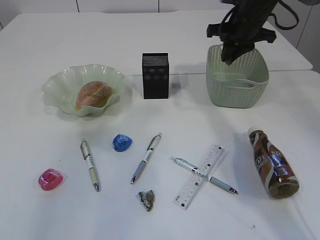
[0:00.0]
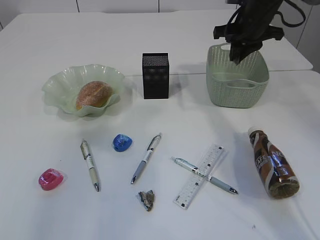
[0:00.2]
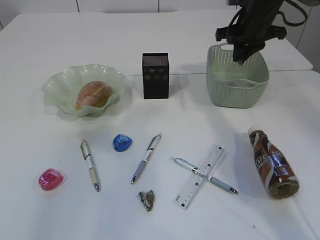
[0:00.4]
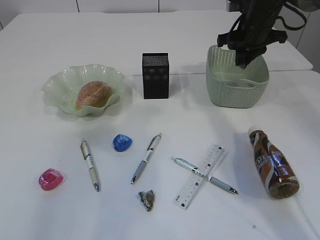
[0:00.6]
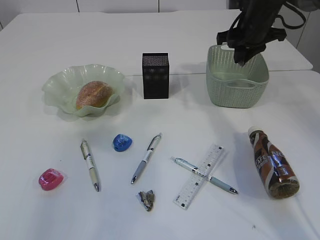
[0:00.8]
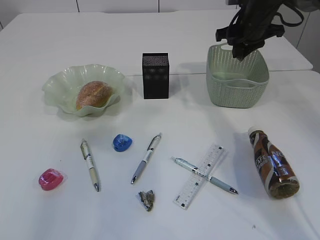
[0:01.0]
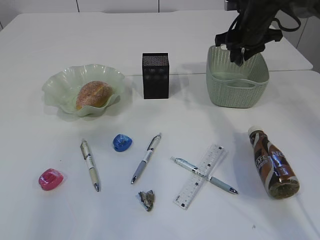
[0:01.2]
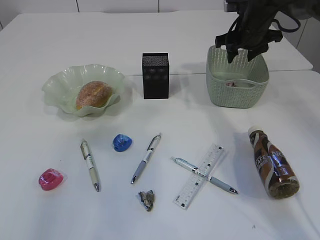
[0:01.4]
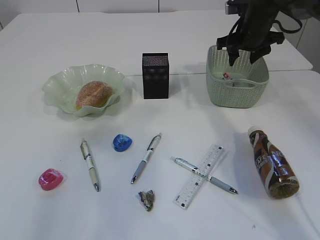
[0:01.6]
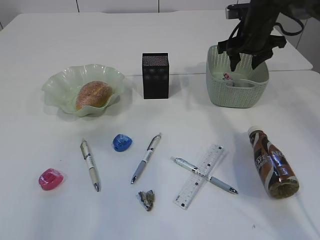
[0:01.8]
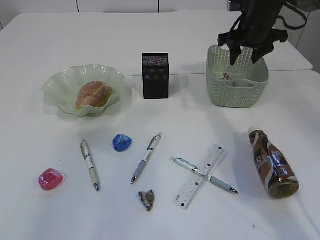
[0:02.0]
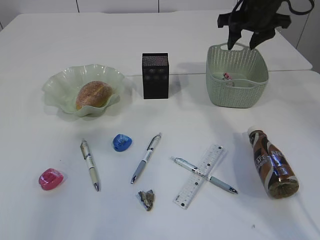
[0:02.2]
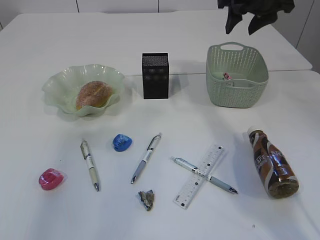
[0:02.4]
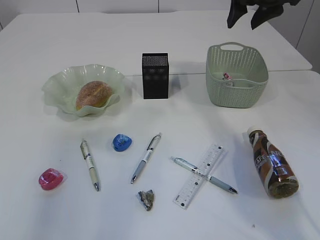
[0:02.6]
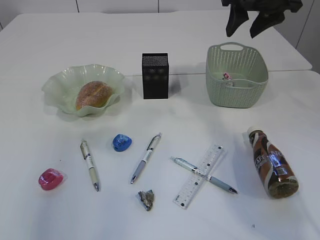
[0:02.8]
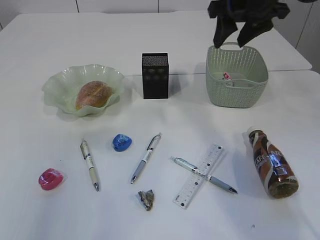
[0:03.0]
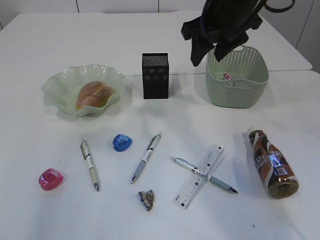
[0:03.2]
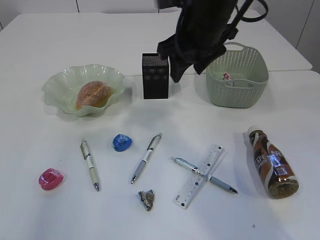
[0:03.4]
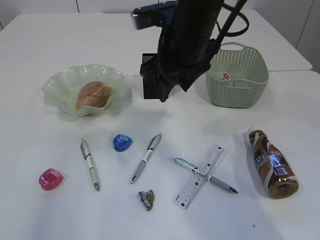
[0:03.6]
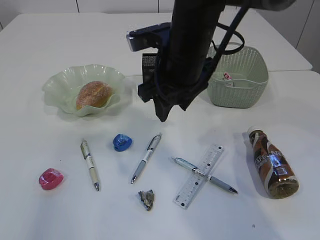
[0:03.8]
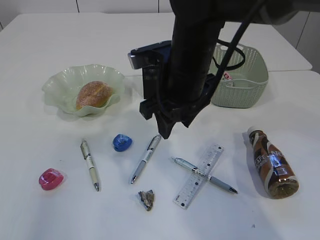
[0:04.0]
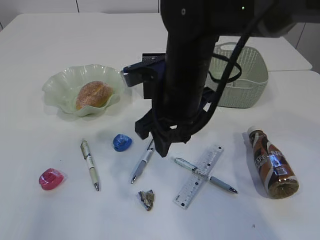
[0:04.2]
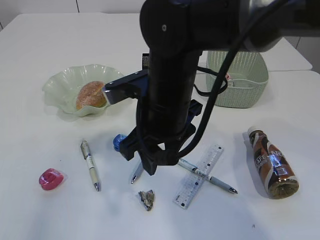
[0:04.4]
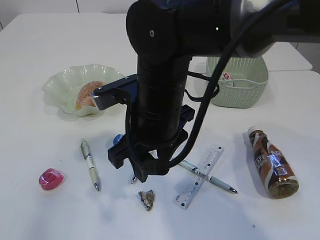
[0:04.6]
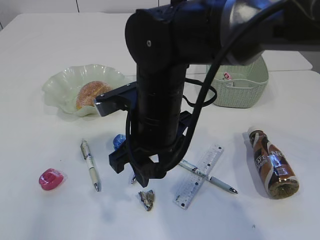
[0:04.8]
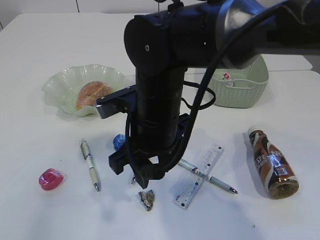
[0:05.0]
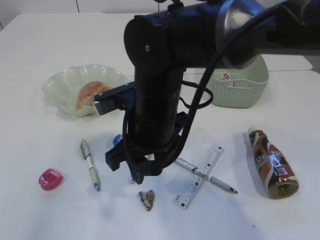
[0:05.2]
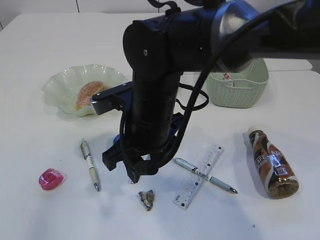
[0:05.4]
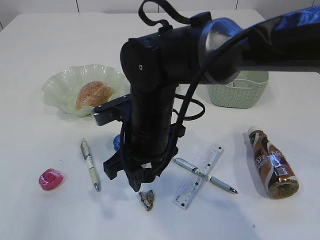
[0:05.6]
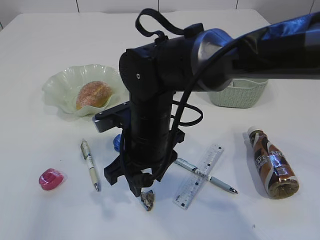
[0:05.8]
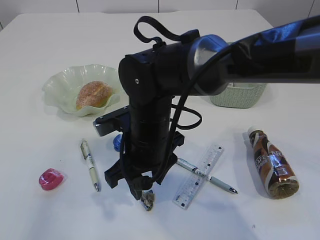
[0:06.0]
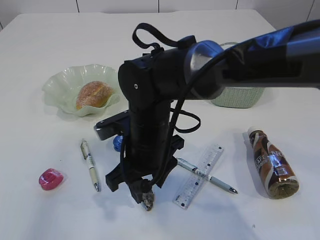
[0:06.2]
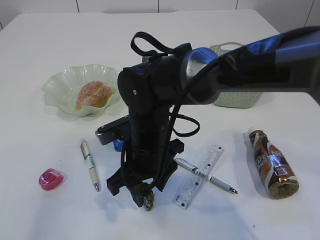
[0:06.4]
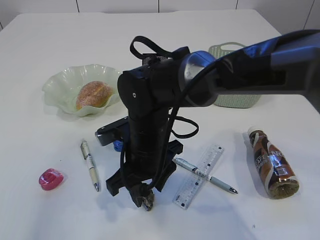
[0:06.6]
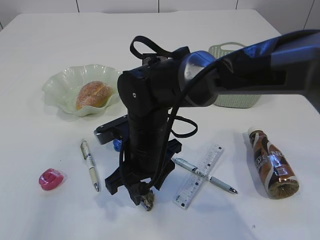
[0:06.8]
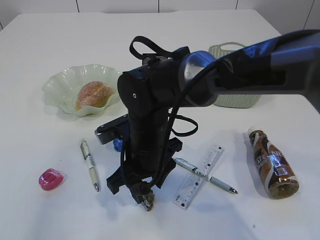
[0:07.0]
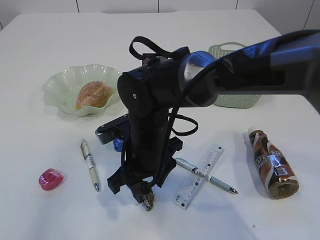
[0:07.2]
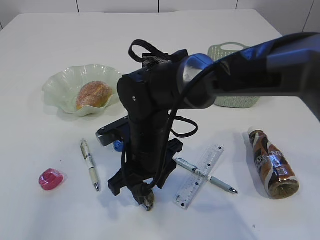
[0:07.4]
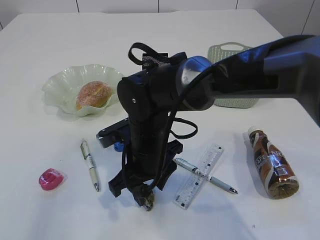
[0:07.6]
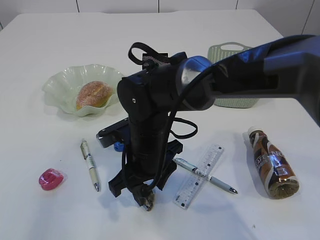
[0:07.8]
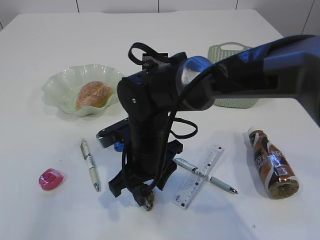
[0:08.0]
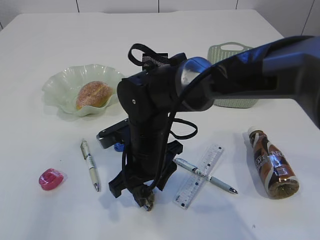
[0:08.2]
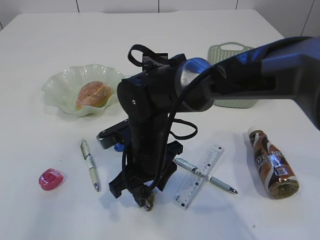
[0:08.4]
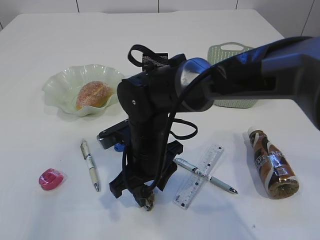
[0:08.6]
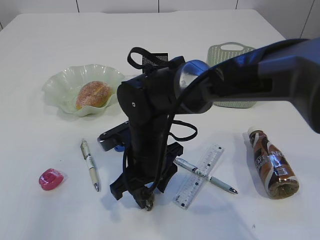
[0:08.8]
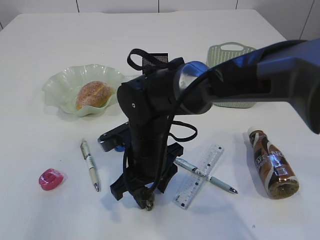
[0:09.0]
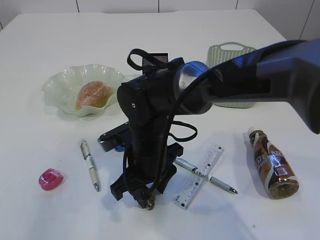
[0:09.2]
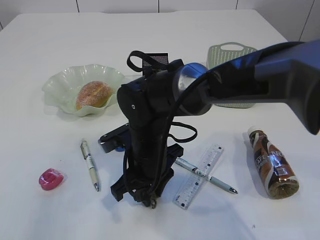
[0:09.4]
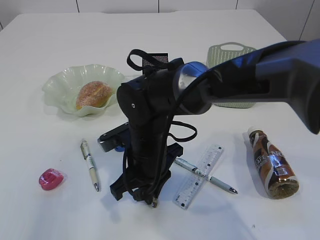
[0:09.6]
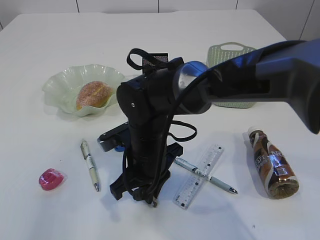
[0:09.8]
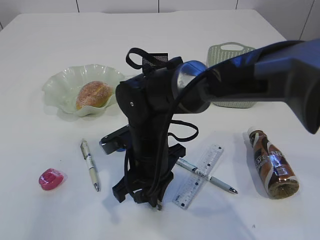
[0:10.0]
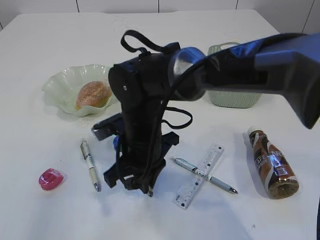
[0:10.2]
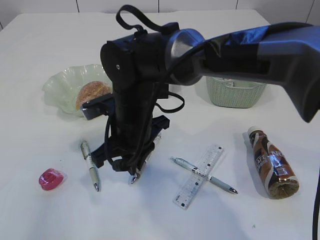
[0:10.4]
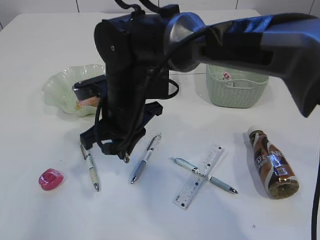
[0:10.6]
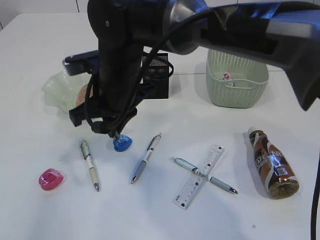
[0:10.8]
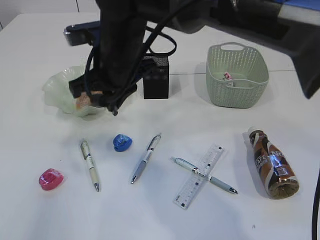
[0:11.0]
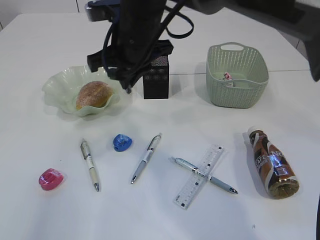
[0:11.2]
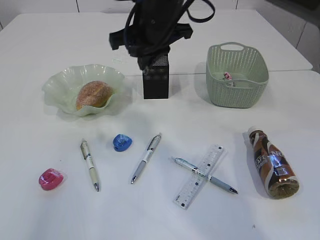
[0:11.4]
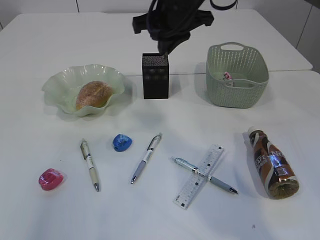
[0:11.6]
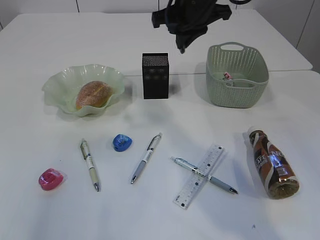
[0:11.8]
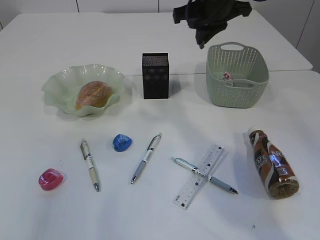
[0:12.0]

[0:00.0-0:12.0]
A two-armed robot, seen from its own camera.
Step, 0:00.0 to 0:02.4: Place the waste paper in the basket.
Step, 0:02.6 to 0:10.4: Pick up the waste paper.
0:00.0 to 0:01.6: The right gripper opens.
0:01.6 to 0:03.0: The right gripper shifts roughly 15 cm upward and backward.
0:03.0 to 0:04.4: The right gripper goes approximately 25 cm to the left, backward and downward.
0:04.4 to 0:06.0: The right gripper shifts roughly 5 cm downward.
0:06.0 to 0:07.6: The grippers move only a little.
0:07.6 to 0:09.0: The two grippers keep their place.
0:09.0 to 0:10.4: The right gripper ends up some 5 cm from where it was, and closes up.
0:10.4 to 0:12.0: The right gripper moves to the right, upward and forward, roughly 25 cm.

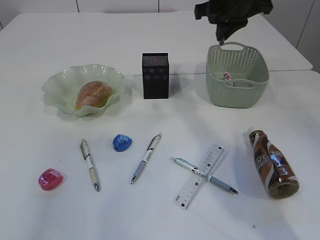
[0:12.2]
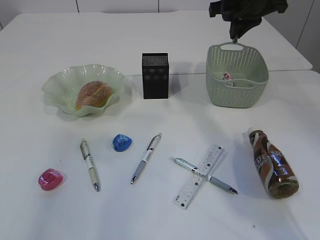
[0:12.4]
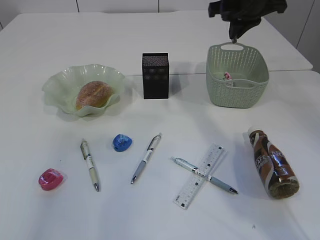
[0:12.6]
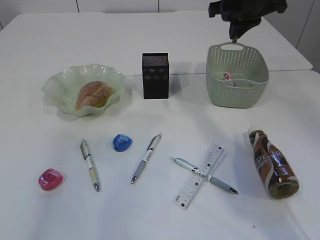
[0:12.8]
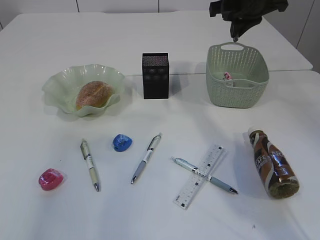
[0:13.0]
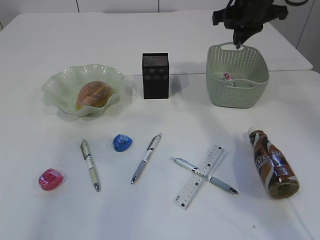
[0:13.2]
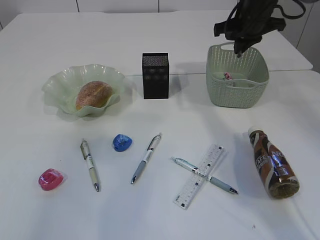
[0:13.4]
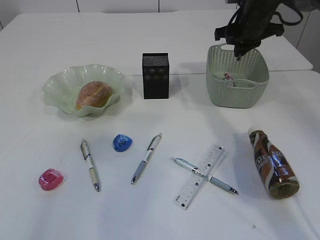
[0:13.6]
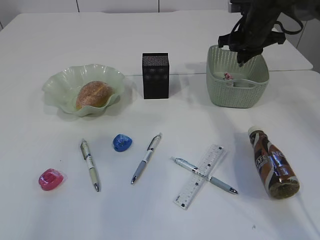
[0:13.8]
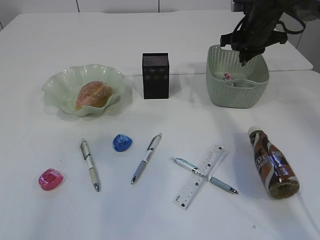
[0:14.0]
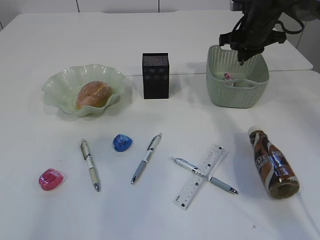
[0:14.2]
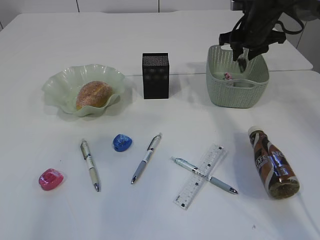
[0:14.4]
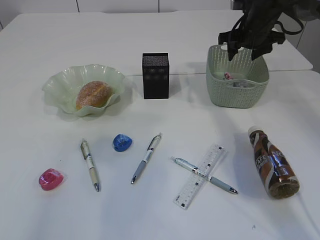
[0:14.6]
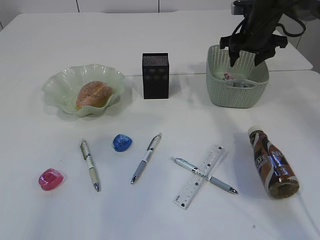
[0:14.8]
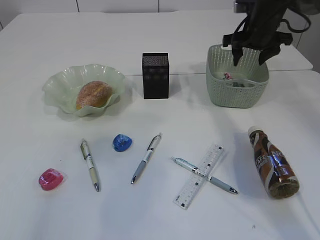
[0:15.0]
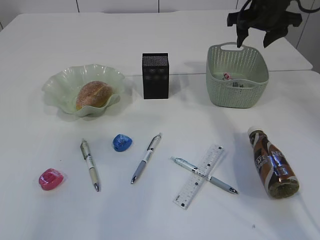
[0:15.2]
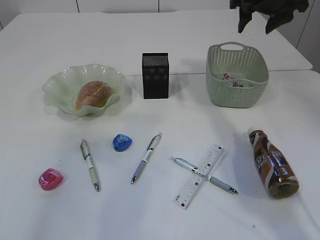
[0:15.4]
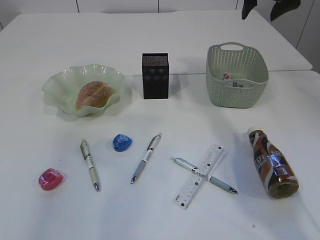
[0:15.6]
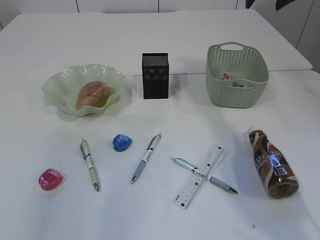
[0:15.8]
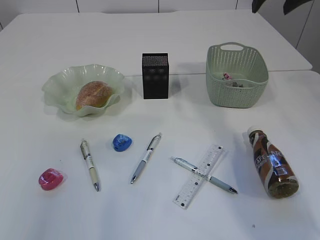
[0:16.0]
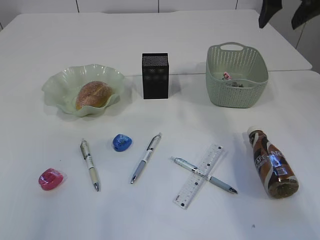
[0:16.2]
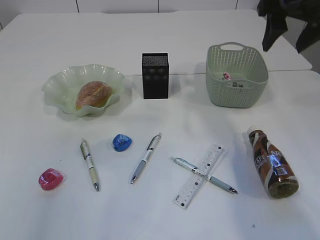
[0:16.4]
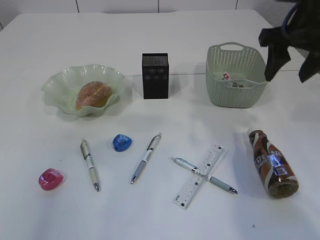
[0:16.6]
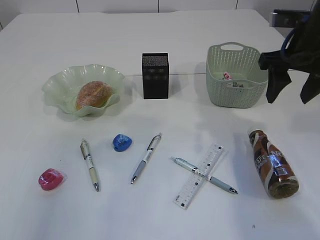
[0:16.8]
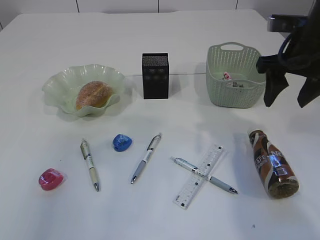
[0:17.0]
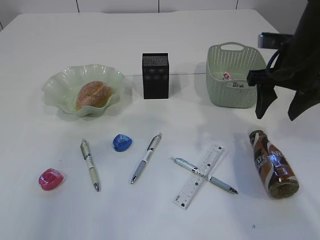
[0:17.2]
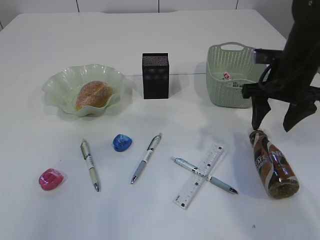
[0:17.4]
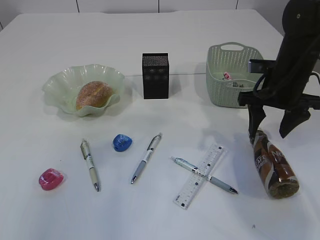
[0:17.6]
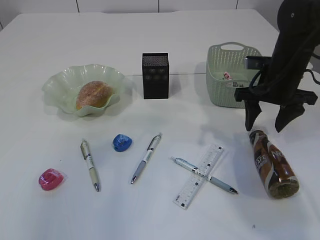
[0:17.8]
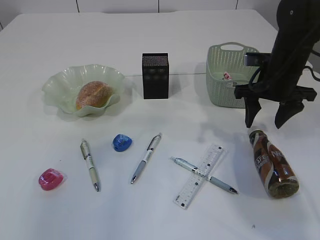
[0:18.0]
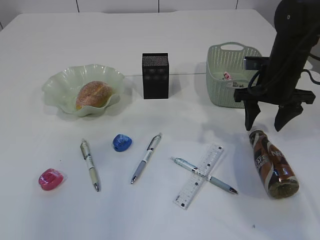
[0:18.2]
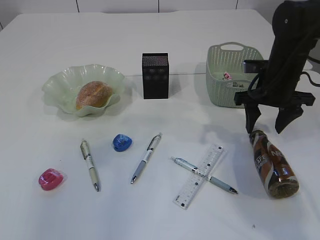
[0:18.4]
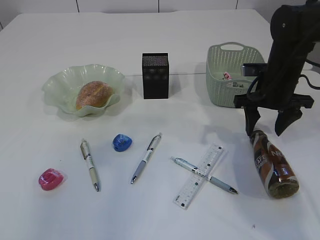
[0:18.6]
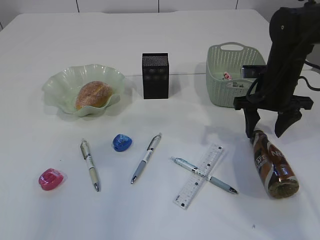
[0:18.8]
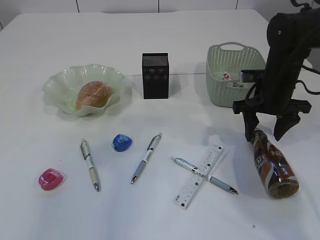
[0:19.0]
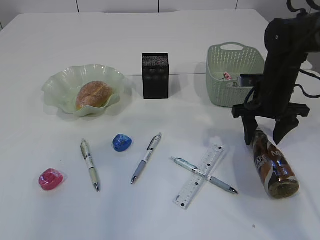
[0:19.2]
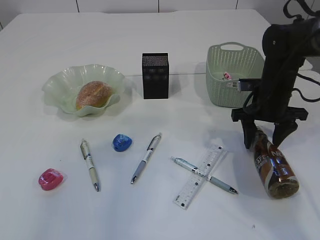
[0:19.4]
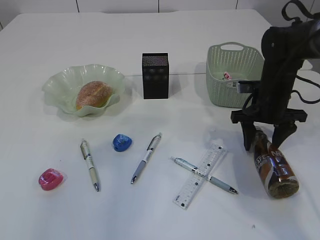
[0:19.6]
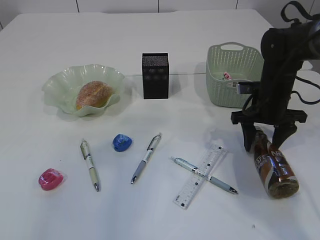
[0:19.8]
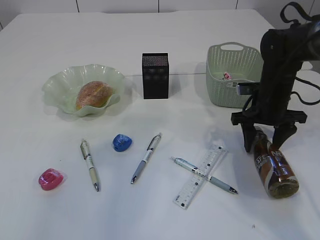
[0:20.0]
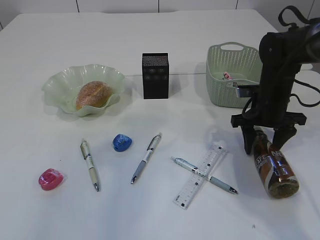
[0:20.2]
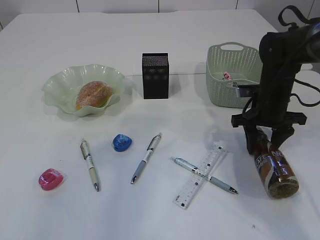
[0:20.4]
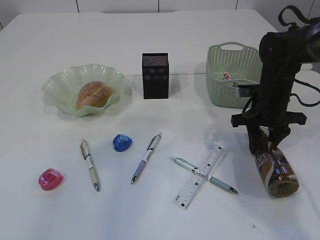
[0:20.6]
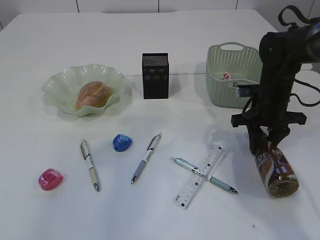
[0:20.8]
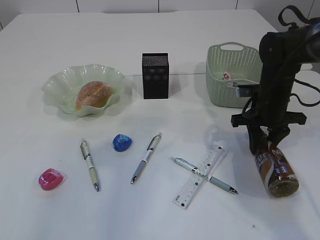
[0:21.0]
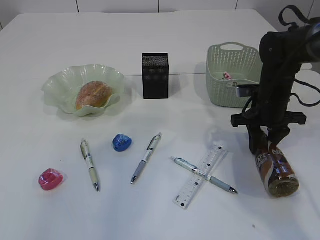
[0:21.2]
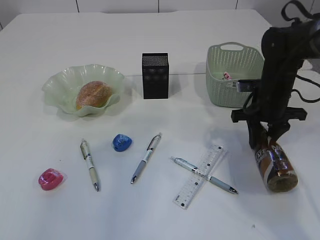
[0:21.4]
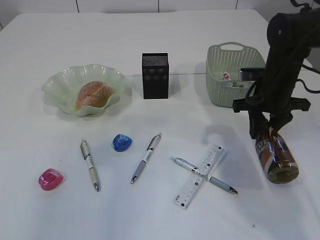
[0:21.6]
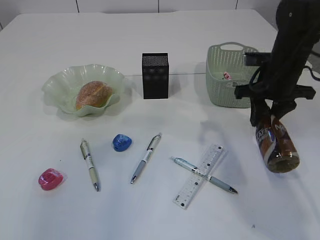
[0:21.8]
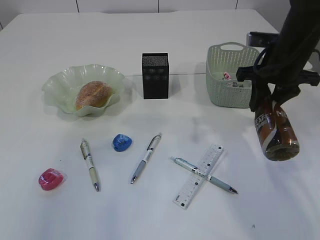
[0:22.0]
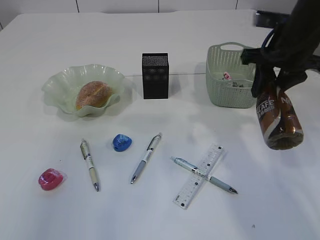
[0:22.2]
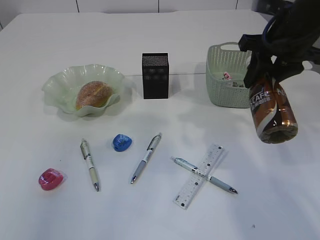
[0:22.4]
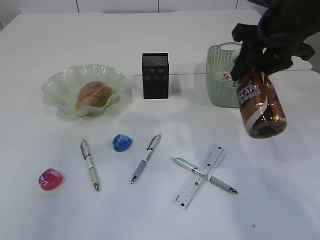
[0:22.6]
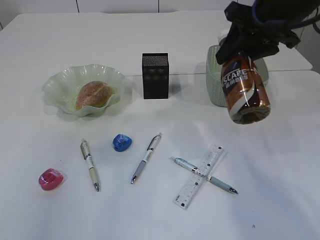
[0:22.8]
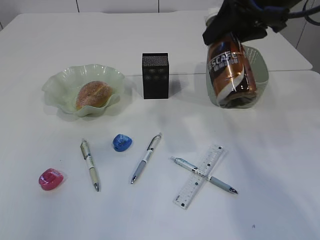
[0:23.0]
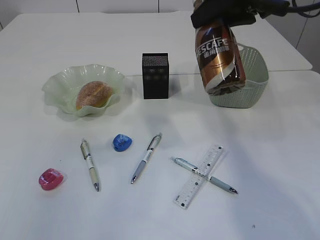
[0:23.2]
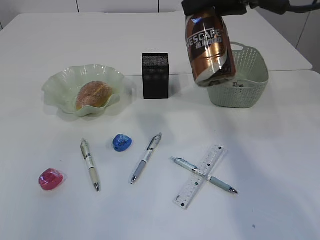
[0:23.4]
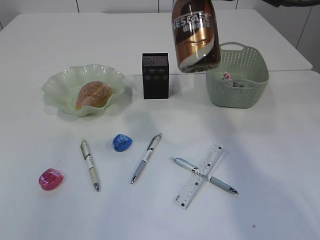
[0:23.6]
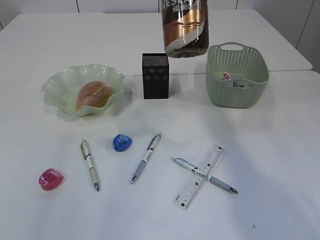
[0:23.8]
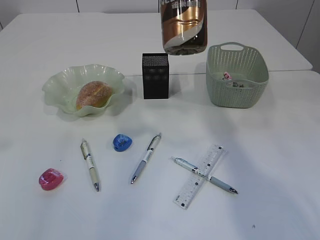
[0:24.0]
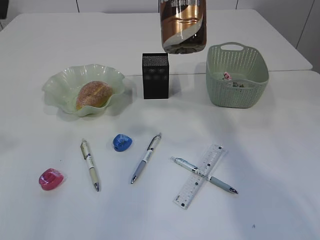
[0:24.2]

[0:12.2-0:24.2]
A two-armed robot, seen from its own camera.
Step, 0:12.2 to 0:15.4: Place the waste paper in the basket.
Step, 0:15.6 to 0:21.8: Pick up the bottle with the right arm.
0:12.2 to 0:13.8: The right gripper travels downward and to the right by about 10 cm.
0:13.8 to 0:15.2: The right gripper opens.
0:15.2 to 0:16.6: The right gripper goes some 15 cm backward.
0:16.6 to 0:18.2: The right gripper travels downward by roughly 10 cm.
0:18.2 to 0:19.8: The right gripper is displaced downward by roughly 5 cm.
0:19.8 to 0:21.2: The right gripper closes up.
0:21.2 to 0:22.6: The right gripper shifts approximately 15 cm upward.
0:22.6 to 0:24.2: The right gripper travels upward and to the left by about 10 cm.
